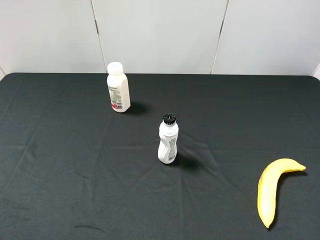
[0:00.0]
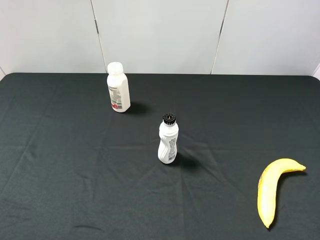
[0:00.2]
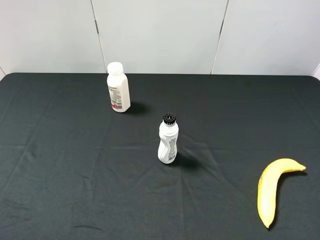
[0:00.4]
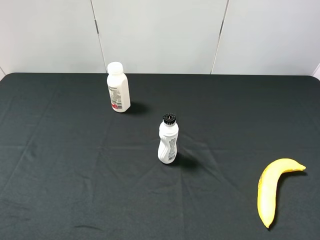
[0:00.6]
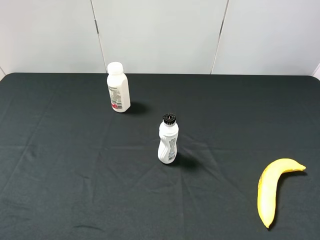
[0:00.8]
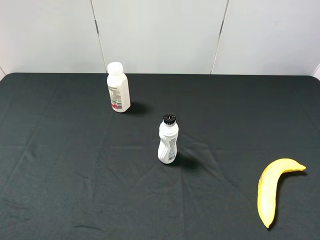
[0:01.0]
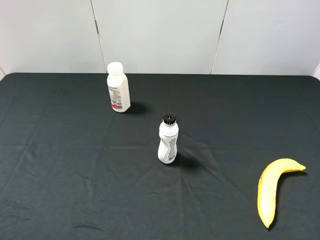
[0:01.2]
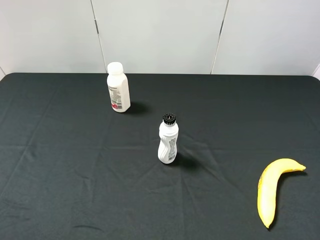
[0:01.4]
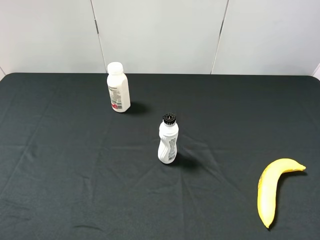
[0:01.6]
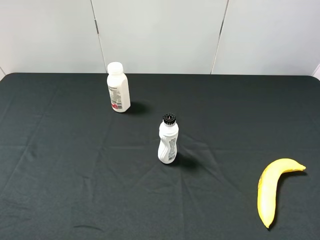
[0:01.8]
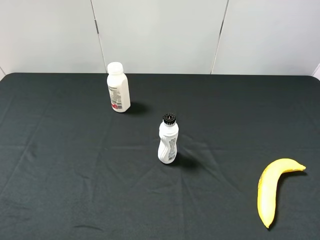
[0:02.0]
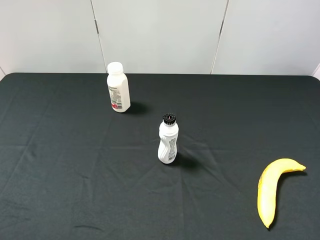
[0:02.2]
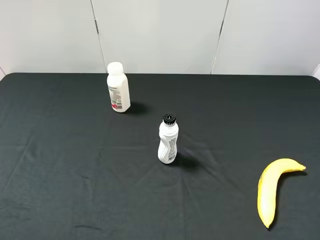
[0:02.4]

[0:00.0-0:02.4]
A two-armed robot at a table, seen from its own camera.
Task of the whole recording: use the left gripper to pick up the item and transfer it from the left gripper to the right gripper.
0:01.2 to 0:02.4: Neither gripper changes place.
